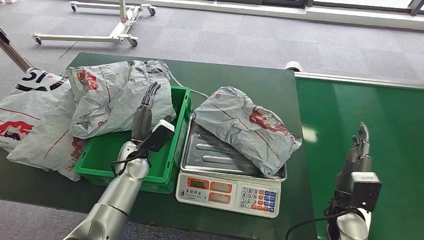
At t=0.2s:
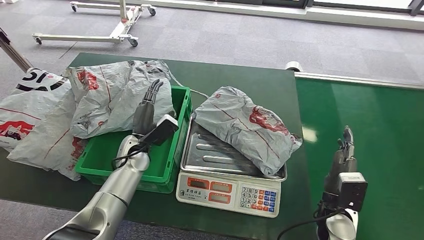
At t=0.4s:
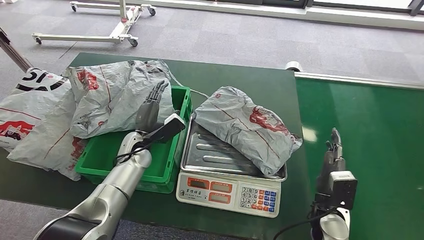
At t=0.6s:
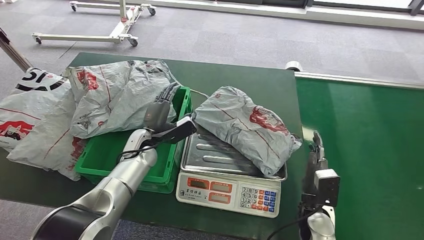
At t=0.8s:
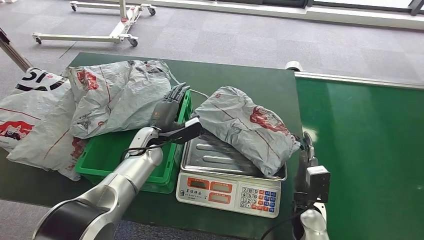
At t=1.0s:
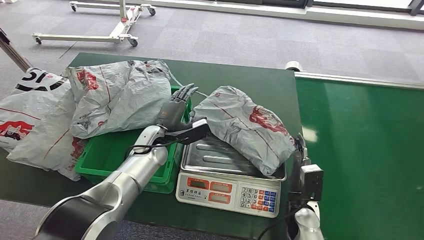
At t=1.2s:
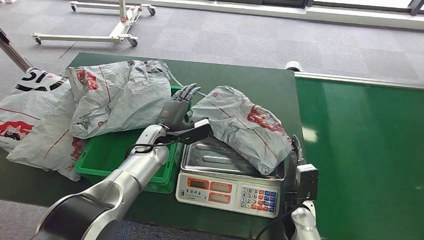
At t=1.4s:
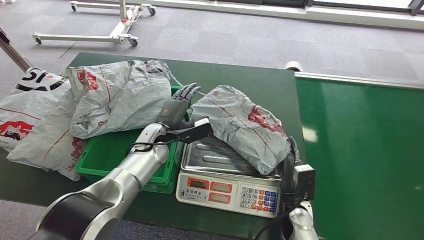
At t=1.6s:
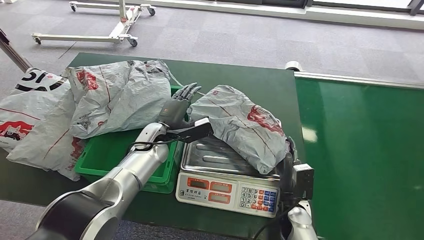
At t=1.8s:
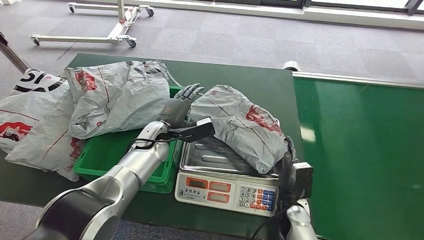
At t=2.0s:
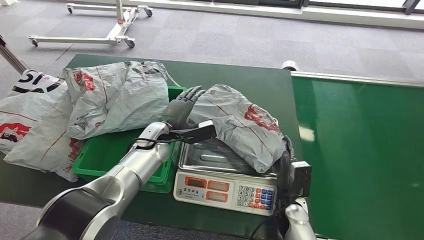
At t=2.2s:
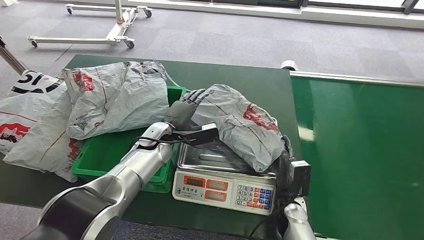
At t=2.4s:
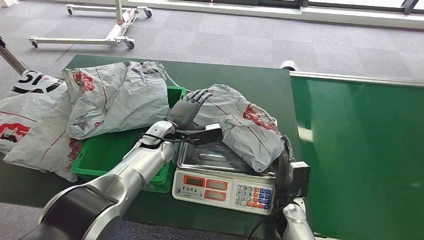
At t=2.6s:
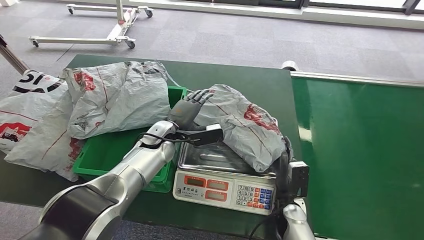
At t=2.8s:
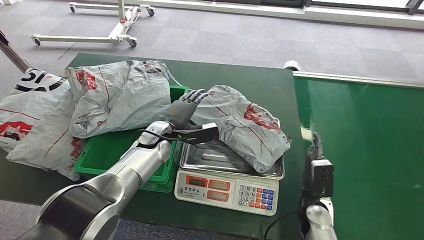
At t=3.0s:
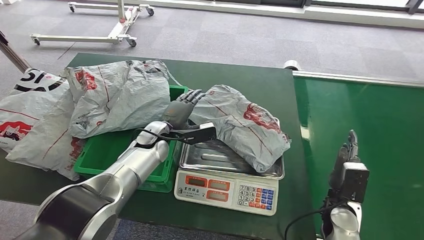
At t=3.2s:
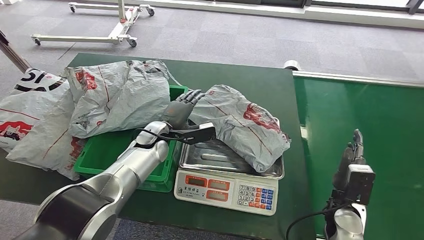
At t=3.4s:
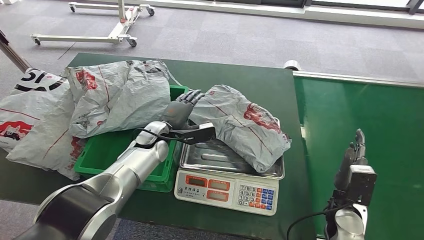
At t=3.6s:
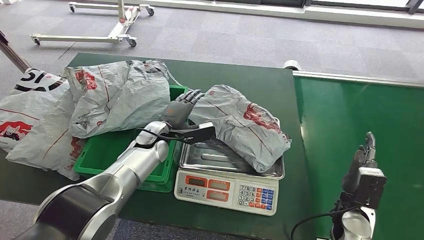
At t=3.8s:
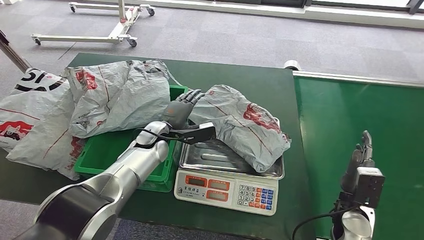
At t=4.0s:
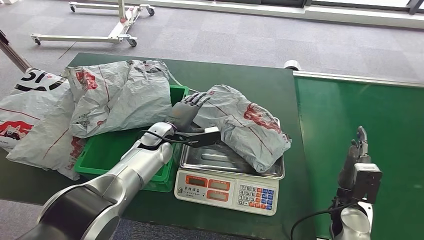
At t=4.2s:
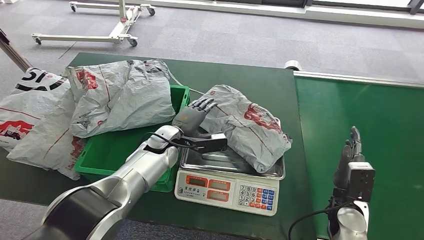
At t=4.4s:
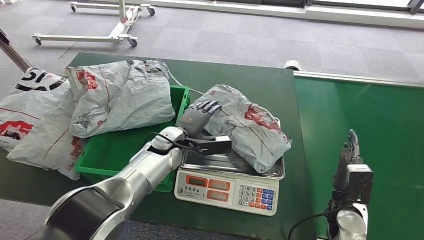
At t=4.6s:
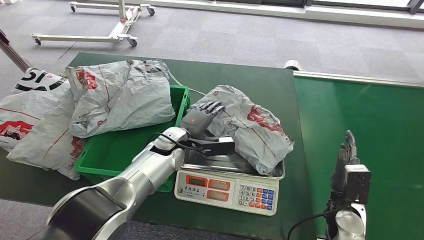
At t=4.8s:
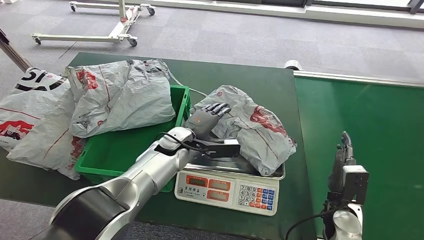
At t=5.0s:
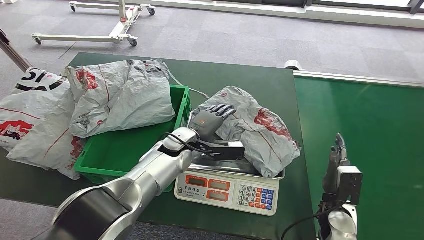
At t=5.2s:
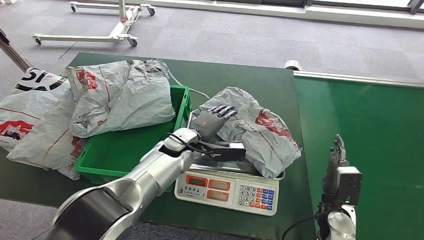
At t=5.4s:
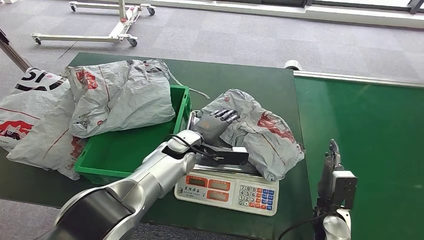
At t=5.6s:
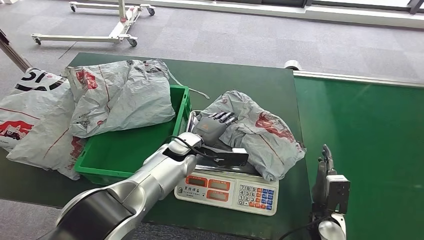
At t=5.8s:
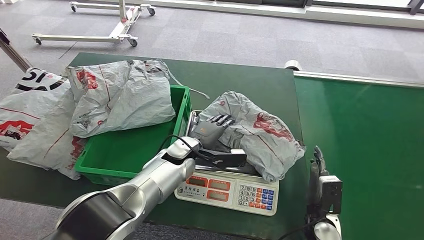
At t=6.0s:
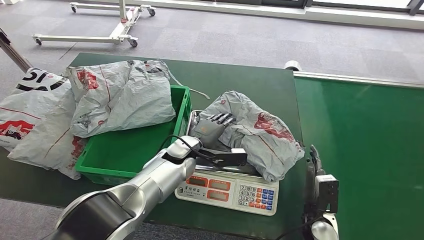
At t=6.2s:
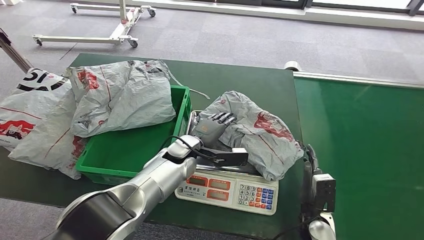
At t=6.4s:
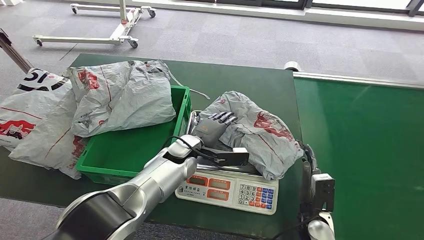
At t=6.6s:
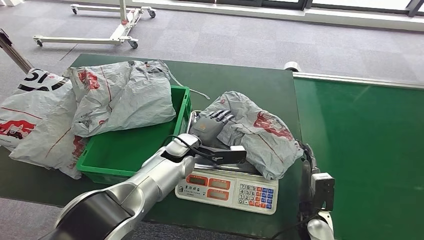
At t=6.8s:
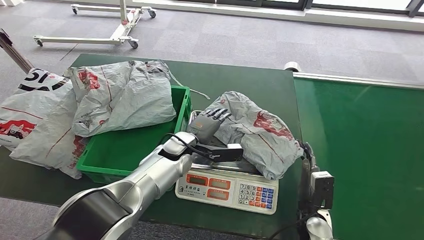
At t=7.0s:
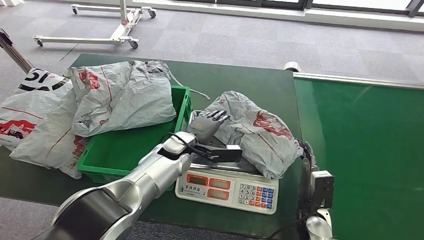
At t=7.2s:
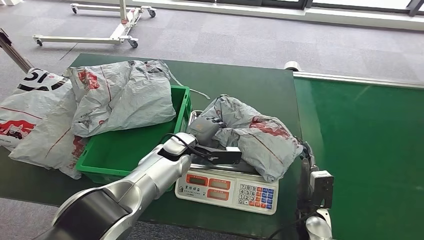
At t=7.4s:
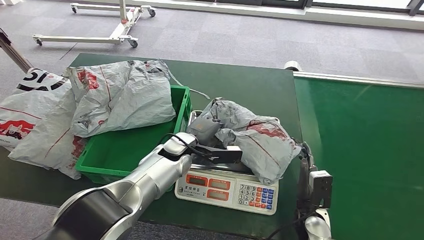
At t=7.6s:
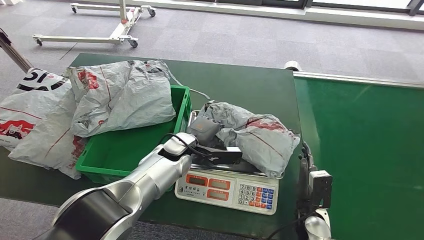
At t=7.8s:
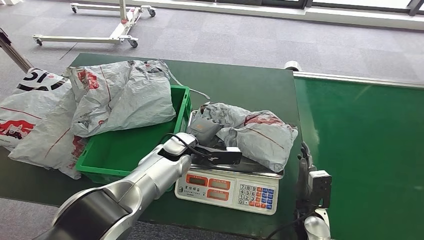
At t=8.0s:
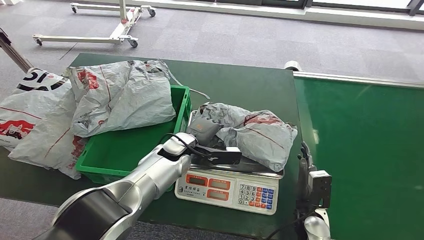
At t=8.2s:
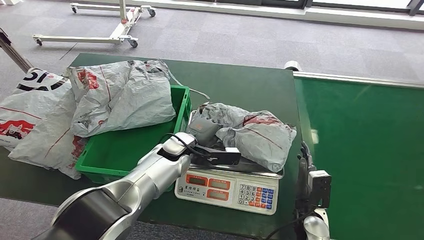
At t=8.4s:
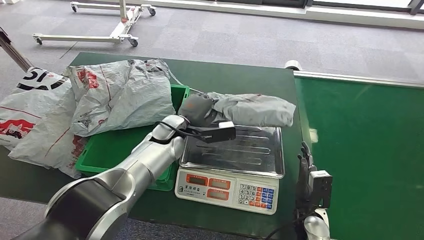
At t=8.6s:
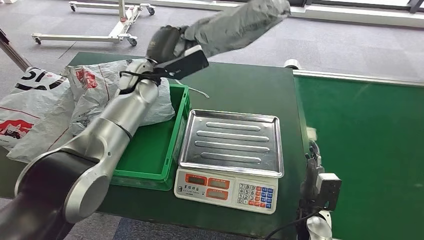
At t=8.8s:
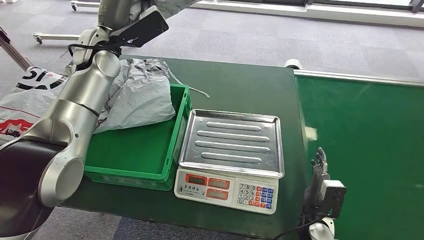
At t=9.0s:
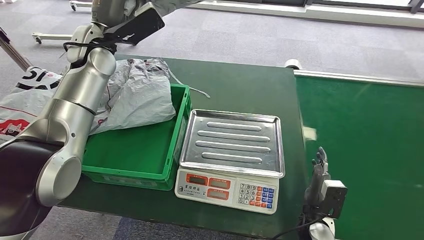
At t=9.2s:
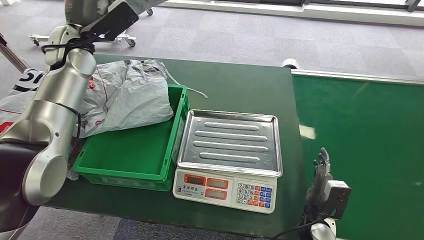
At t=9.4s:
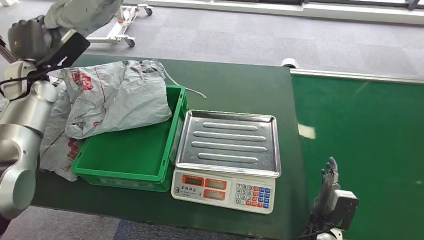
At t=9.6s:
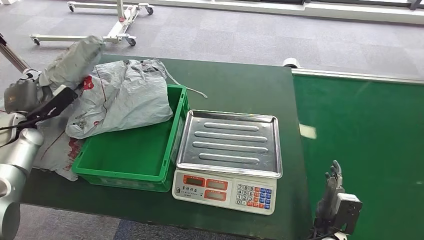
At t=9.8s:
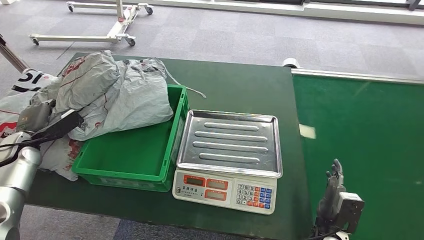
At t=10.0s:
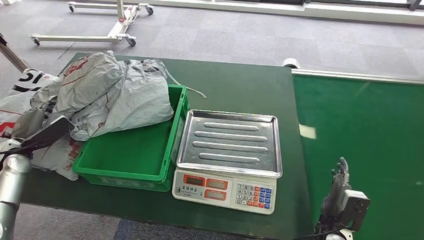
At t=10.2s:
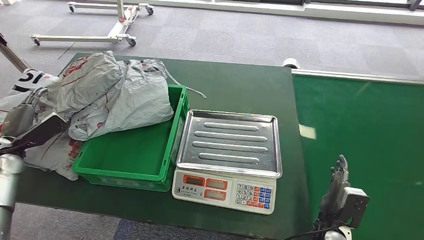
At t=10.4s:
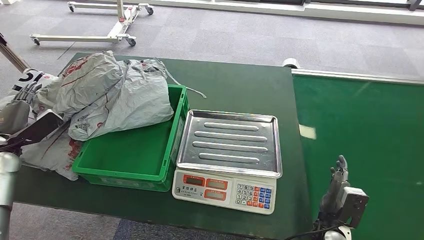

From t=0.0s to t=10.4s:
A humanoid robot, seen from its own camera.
Step, from t=0.2s to t=8.4s: Pick up the package from the inbound machine.
From t=0.0s to t=1.4s: The right hand travels to the left and downward by some 15 cm. The left hand travels forward by some 5 cm.
From t=1.4s to t=3.0s: The right hand travels to the right by about 10 cm.
From t=3.0s to t=4.4s: The hands move only a little.
From t=4.4s to t=6.0s: The right hand goes about 5 cm to the left.
From t=6.0s to t=7.4s: The hands make only small movements.

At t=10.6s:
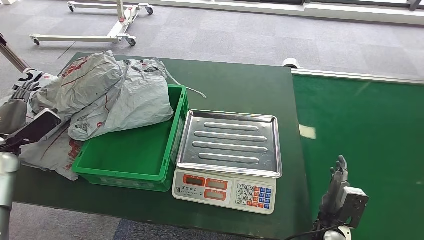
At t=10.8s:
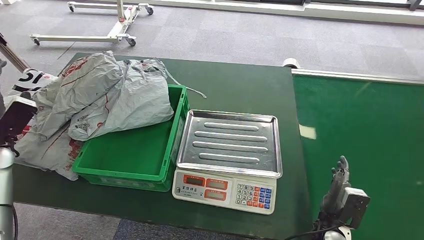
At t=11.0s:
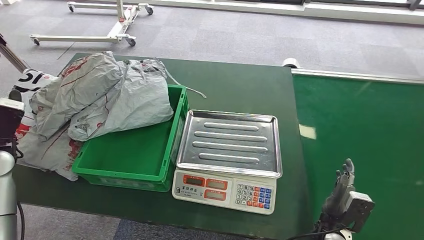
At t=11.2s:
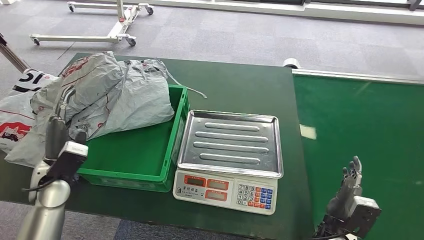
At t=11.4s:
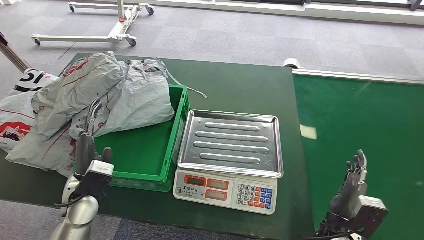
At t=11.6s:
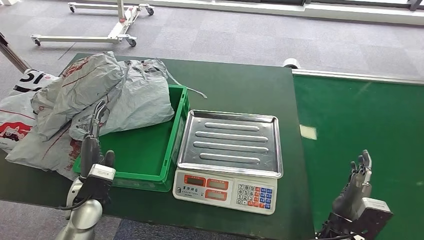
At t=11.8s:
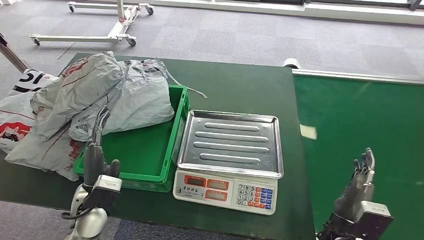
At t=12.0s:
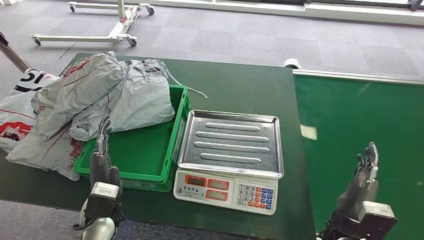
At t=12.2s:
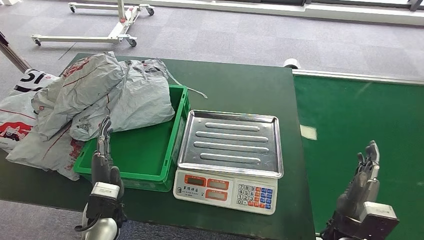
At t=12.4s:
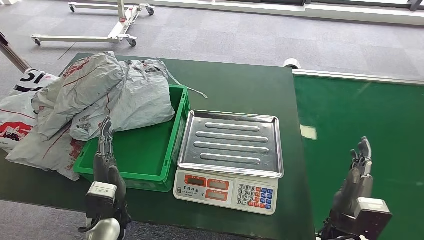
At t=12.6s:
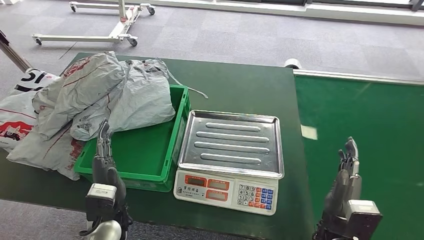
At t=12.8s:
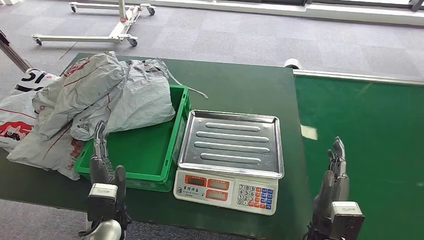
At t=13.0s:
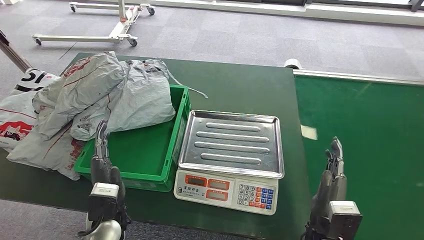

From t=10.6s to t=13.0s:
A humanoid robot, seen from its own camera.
Step, from t=10.6s to t=13.0s: Place the package into the parcel locker.
From t=10.6s to t=11.8s: The right hand travels upward by some 5 cm, while the left hand goes some 30 cm to the right.
From t=11.8s to t=13.0s: The left hand moves approximately 5 cm. The right hand moves about 5 cm.

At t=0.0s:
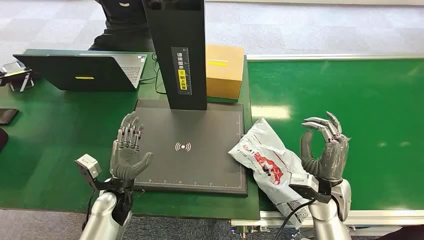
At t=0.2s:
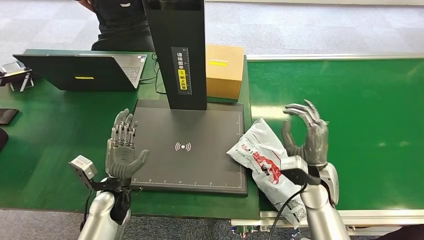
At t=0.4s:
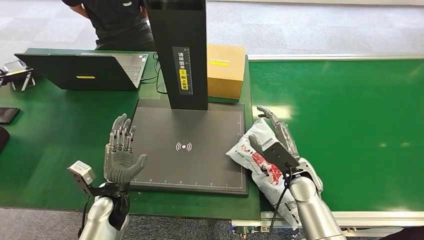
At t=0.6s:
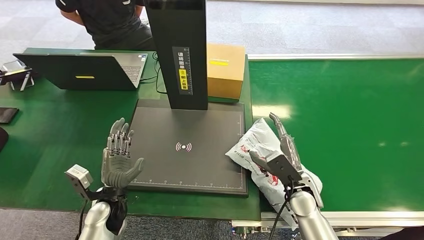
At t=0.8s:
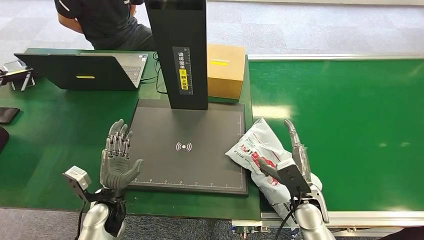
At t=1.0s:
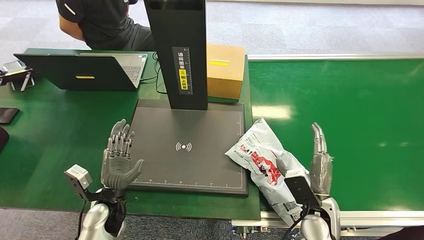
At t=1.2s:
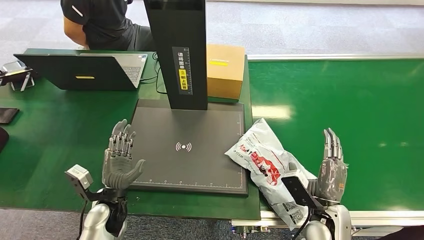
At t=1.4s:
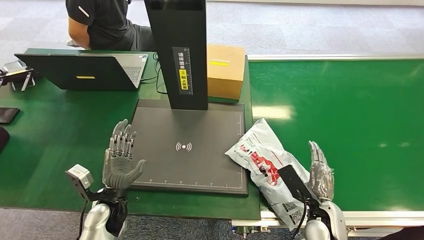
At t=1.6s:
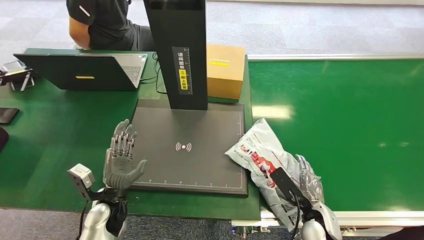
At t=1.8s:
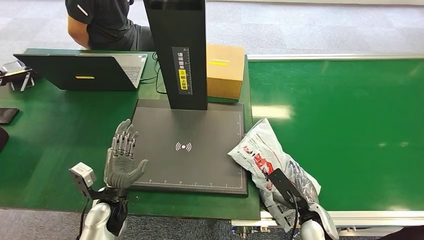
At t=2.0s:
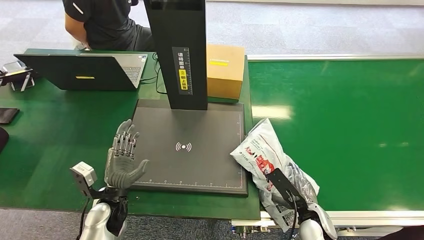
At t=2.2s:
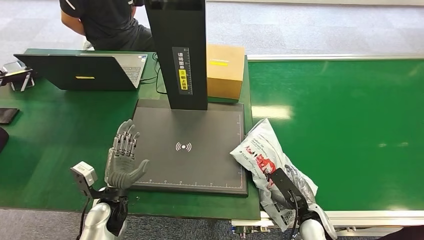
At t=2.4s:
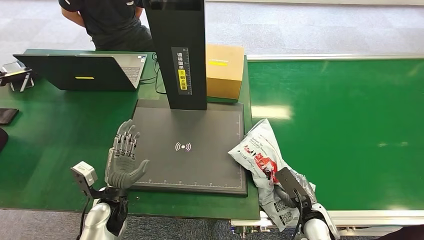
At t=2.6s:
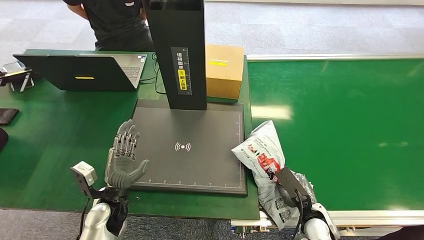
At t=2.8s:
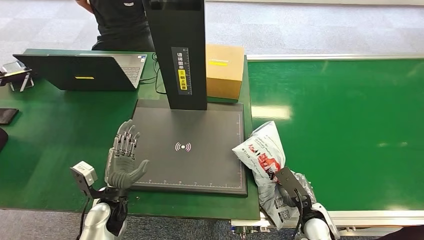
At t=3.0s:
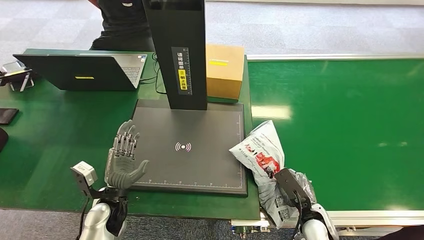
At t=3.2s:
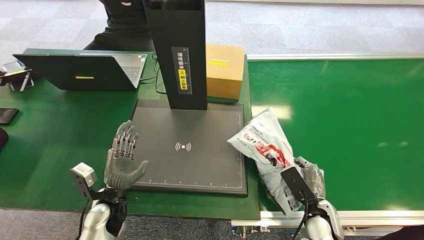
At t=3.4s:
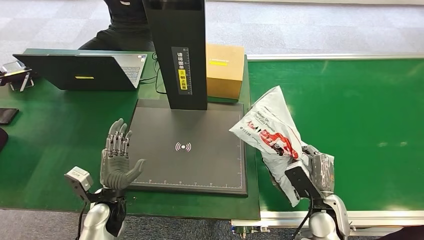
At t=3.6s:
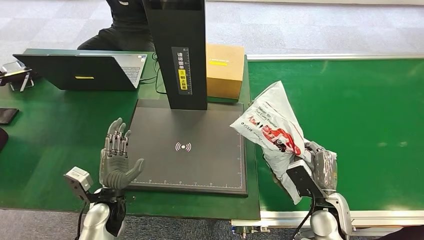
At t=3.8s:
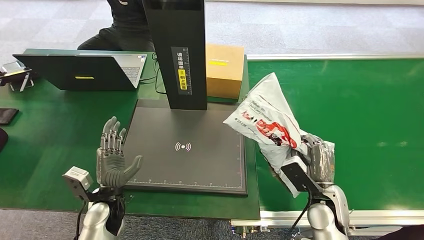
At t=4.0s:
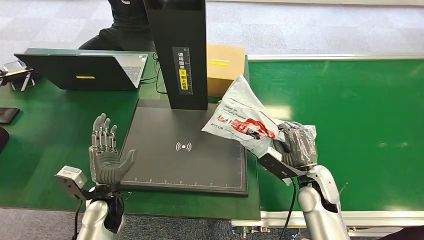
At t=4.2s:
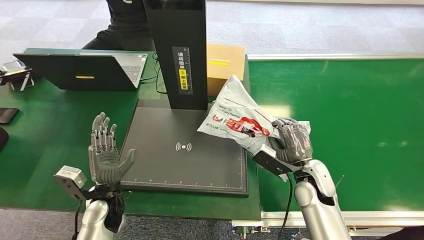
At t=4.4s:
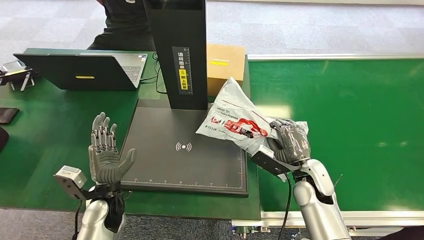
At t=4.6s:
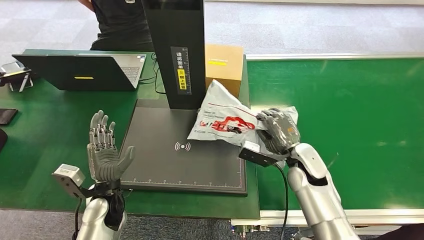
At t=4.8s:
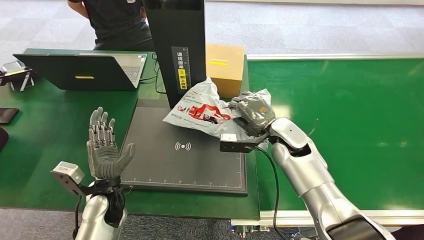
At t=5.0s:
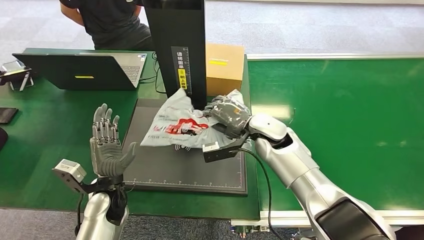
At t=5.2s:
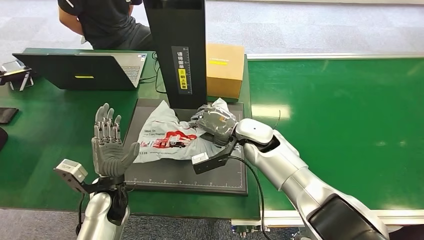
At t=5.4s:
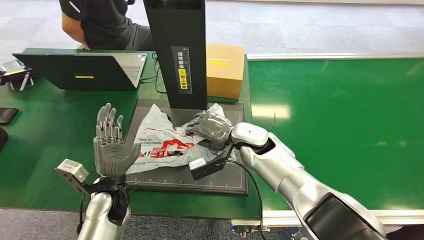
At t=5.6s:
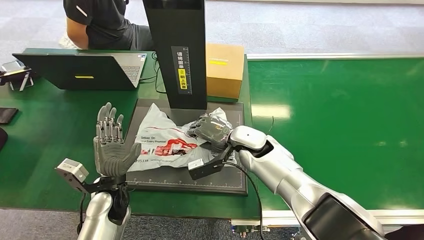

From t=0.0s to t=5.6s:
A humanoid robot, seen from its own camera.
Step, from t=0.0s to t=4.2s: Pick up the package from the conveyor belt.
From t=1.4s to t=2.8s: The right hand changes place by approximately 5 cm.
From t=2.8s to t=4.2s: The right hand is displaced upward and forward by some 15 cm.
